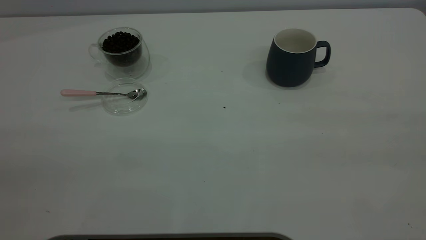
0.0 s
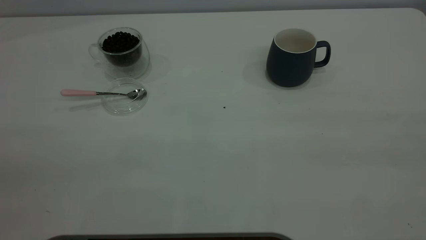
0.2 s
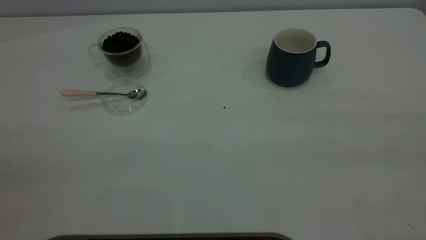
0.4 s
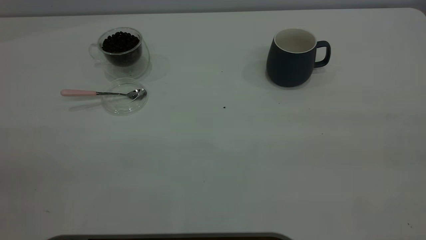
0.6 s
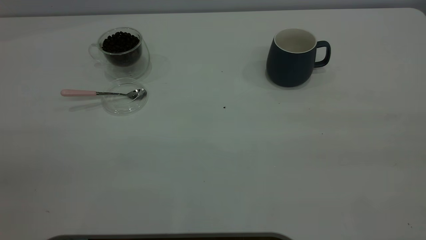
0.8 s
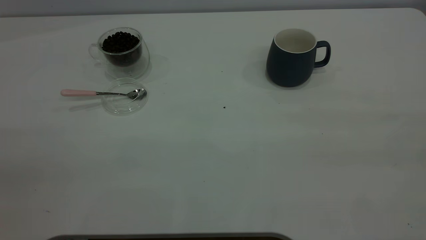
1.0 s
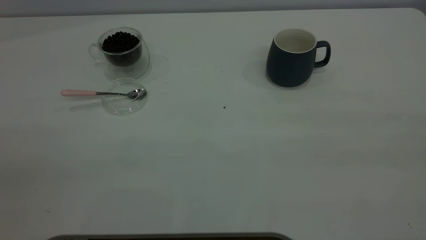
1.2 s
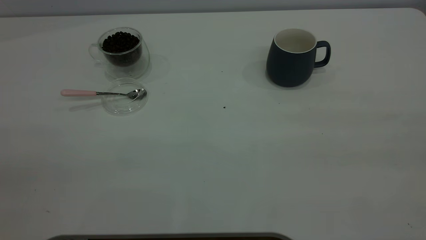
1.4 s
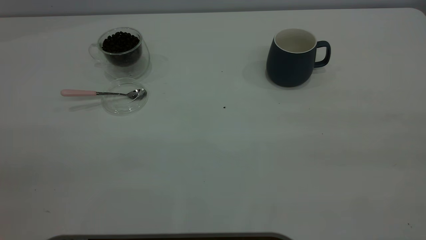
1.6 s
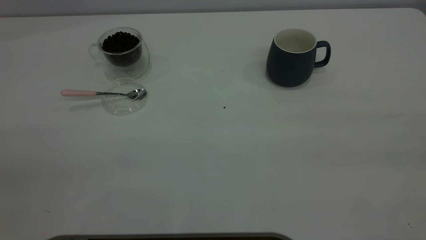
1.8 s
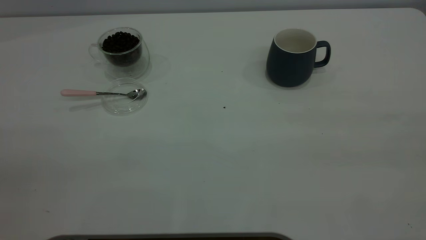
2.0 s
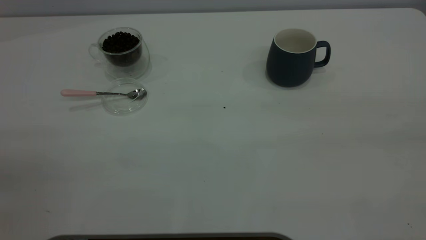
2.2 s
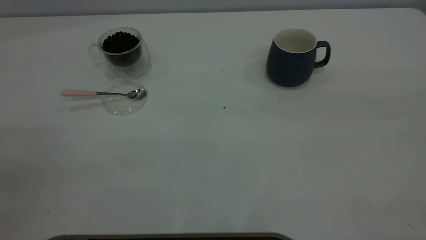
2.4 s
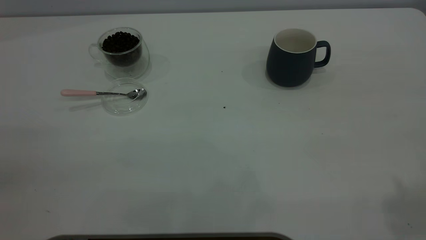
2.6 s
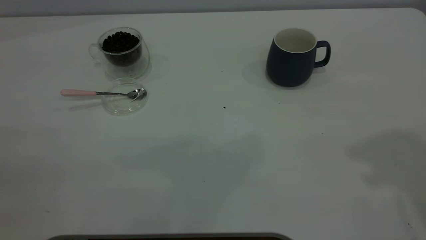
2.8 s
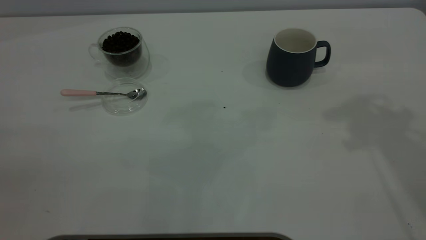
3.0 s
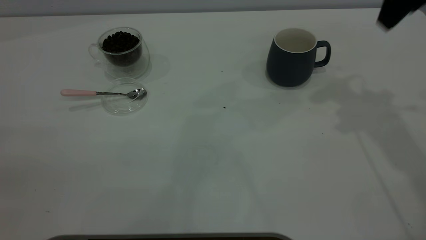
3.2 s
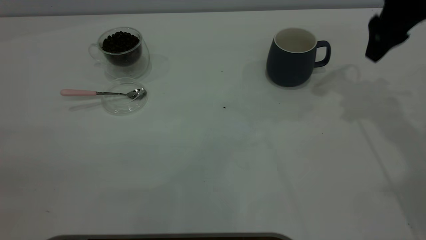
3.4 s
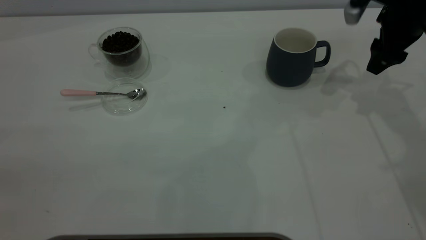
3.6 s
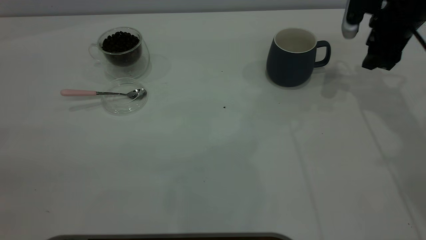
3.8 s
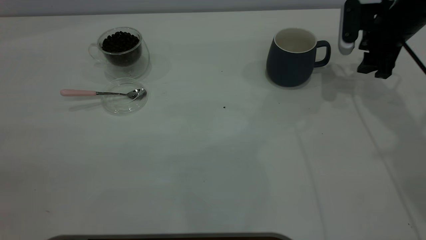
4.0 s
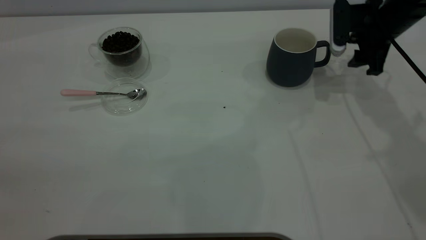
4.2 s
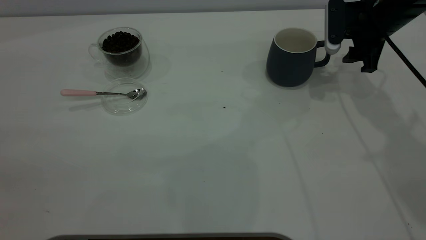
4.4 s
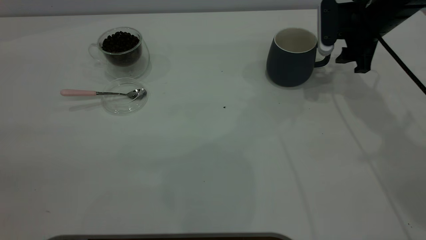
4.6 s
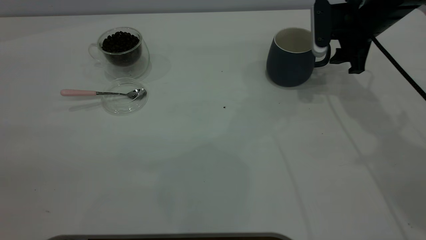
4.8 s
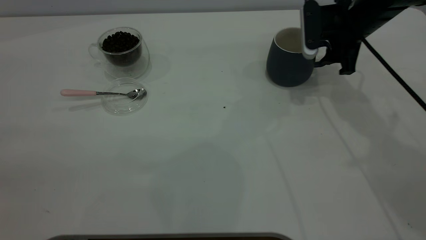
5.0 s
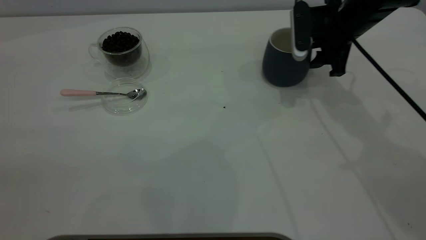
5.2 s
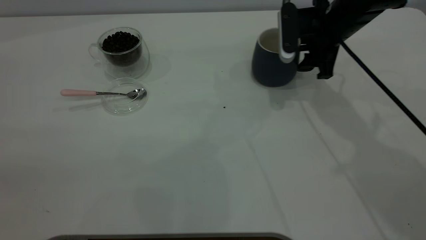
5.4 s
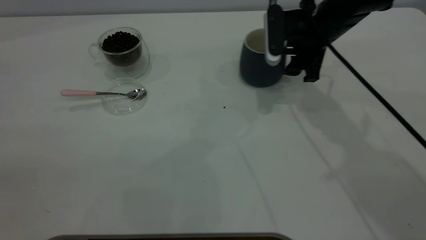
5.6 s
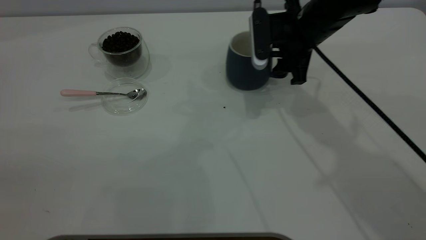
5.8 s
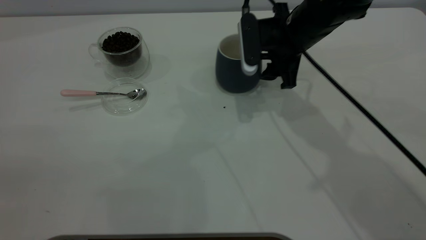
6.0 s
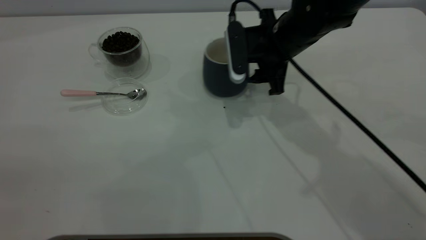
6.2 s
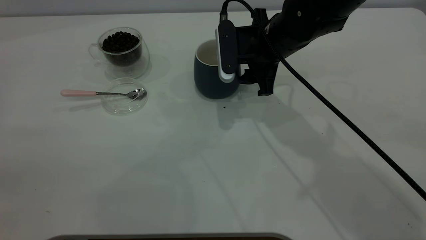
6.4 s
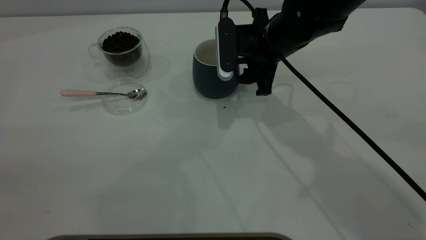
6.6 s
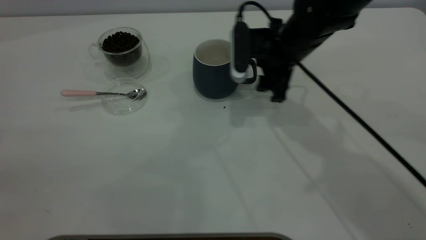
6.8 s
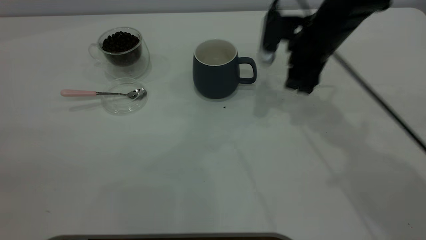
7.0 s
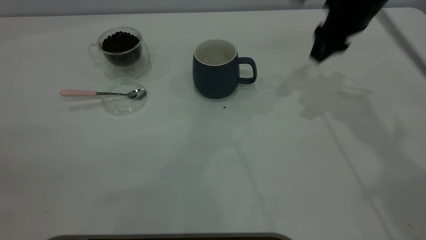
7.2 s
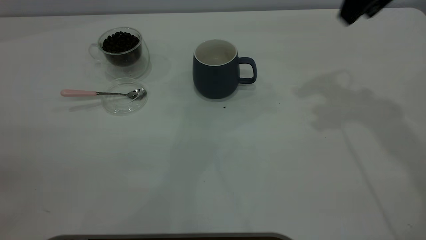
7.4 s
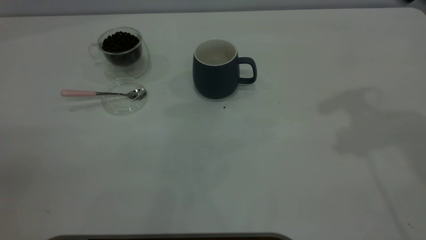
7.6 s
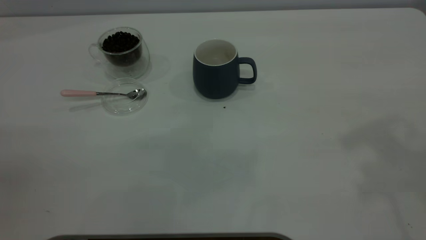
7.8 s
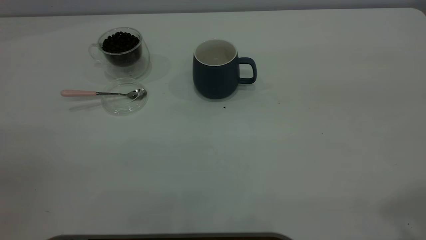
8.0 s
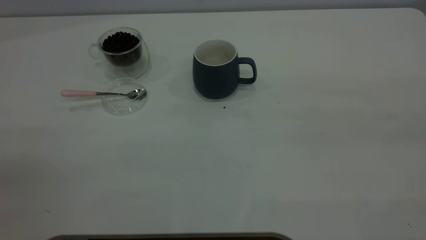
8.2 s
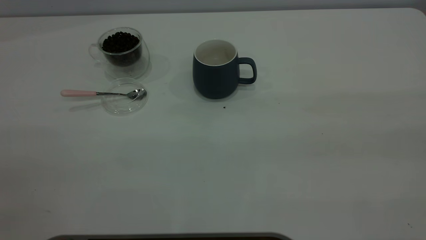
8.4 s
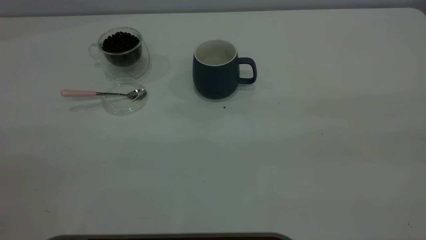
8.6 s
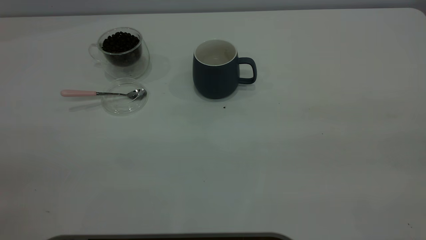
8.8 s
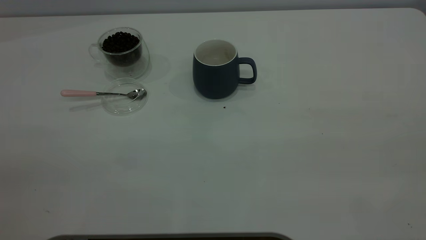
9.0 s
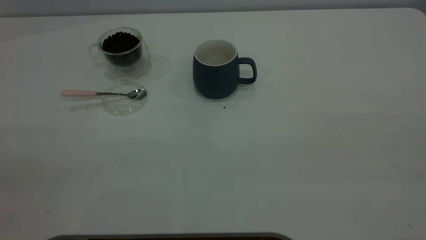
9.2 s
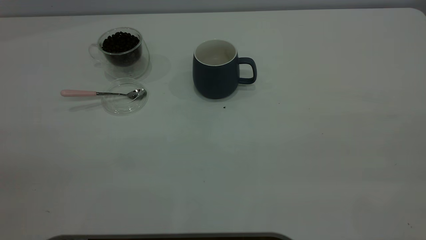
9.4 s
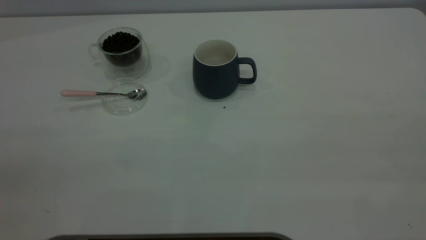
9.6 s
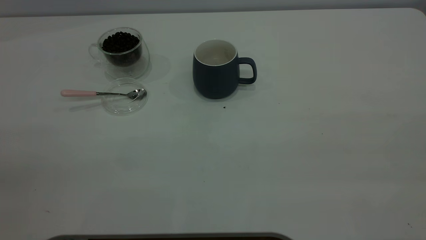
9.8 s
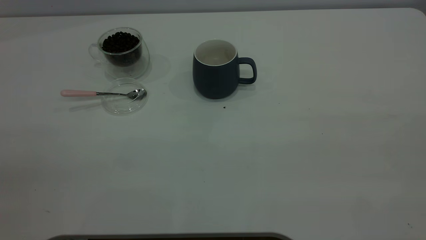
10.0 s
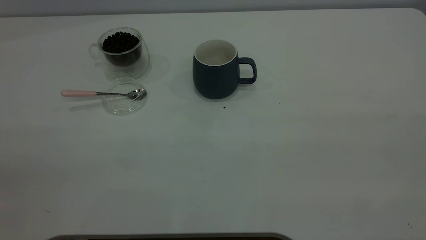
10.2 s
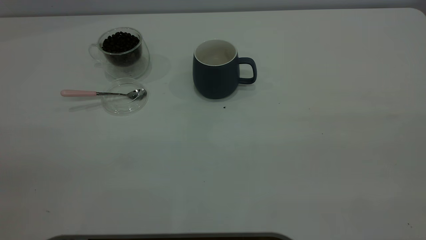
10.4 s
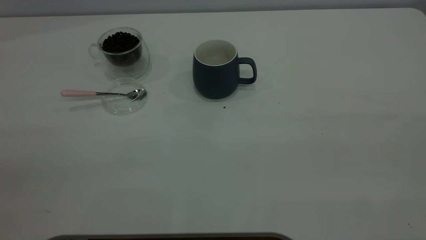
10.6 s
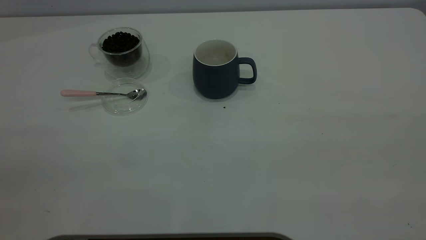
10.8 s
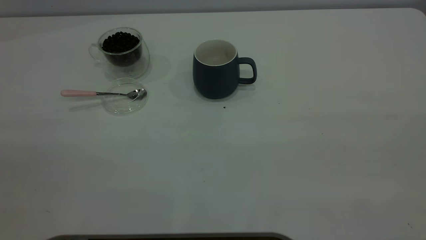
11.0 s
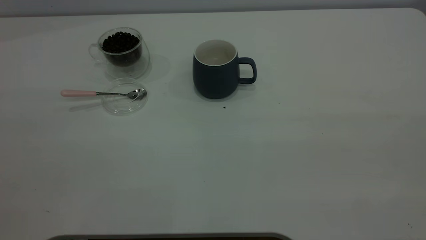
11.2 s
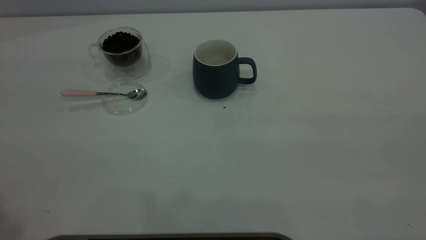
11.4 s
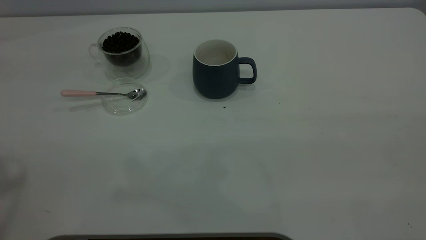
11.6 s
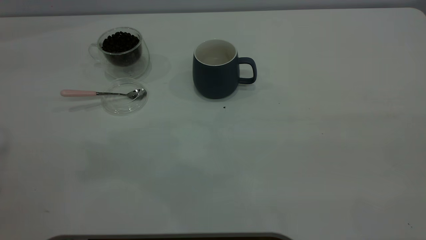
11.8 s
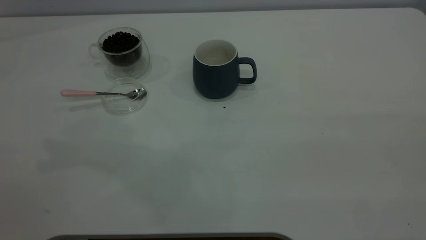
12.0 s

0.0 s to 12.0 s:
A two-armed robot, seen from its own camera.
Task of the whole recording: the right gripper place the grey cup in the center of the table, the left gripper take the pink spoon from the cup lid and scoop out the coffee beans from the coffee cup and put them into the grey cup, the left gripper put the spoon back into the cup lid.
Step, 0.0 to 6.8 s: Move the cup to the center of view.
0.0 to 1.6 s: The two grippers keep their place.
3.0 to 4.4 s: The right gripper goes roughly 25 cm downward and forward.
4.4 to 6.0 s: The right gripper travels to the left by about 15 cm.
6.0 to 7.6 s: The right gripper is displaced upward and to the right by roughly 30 cm.

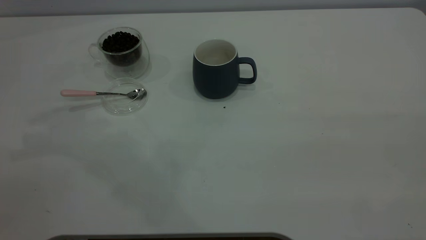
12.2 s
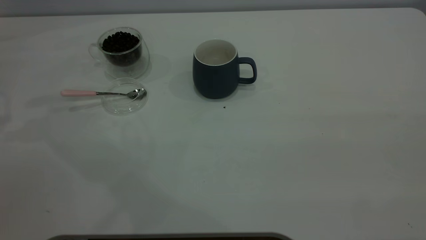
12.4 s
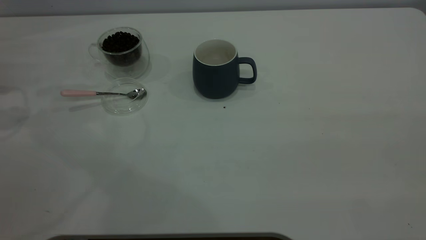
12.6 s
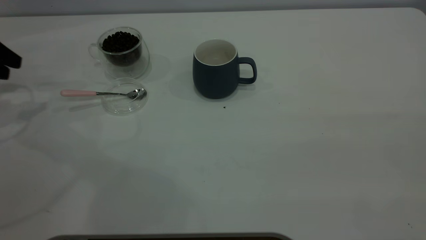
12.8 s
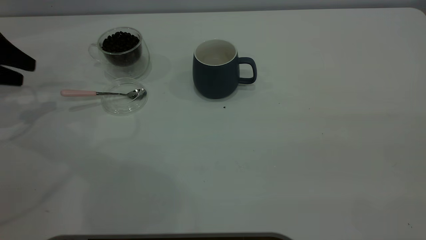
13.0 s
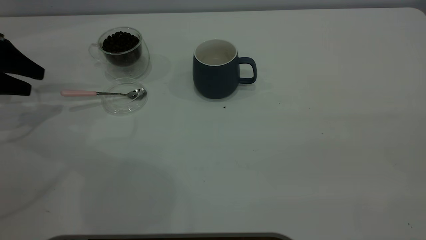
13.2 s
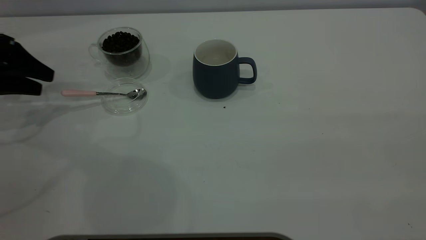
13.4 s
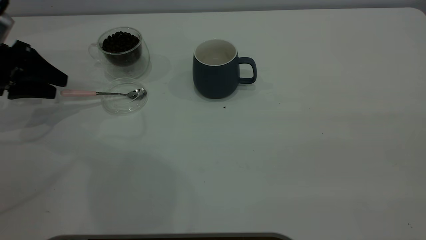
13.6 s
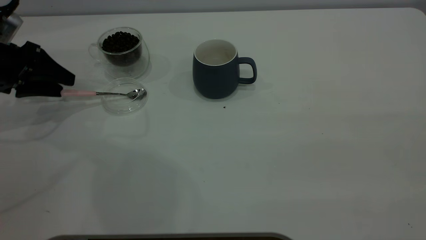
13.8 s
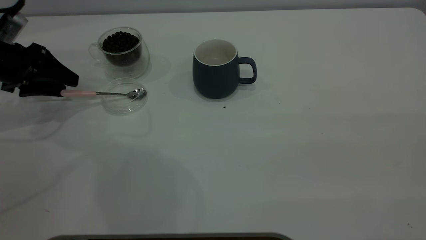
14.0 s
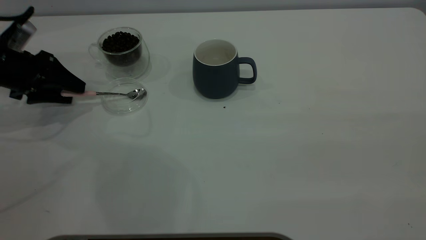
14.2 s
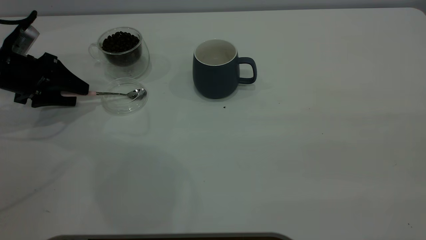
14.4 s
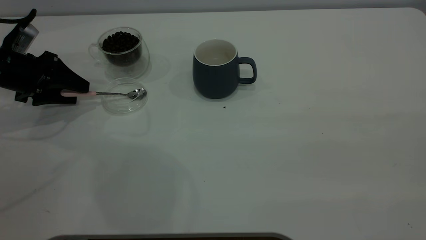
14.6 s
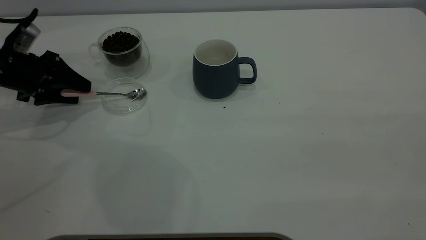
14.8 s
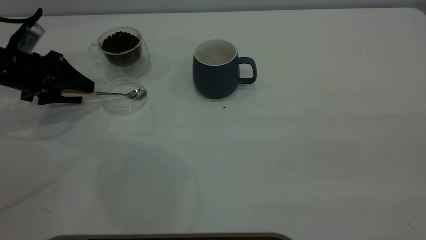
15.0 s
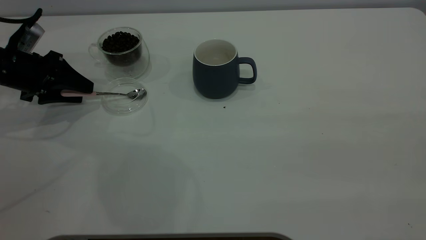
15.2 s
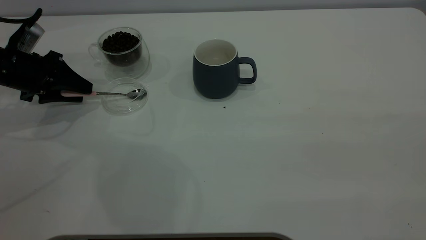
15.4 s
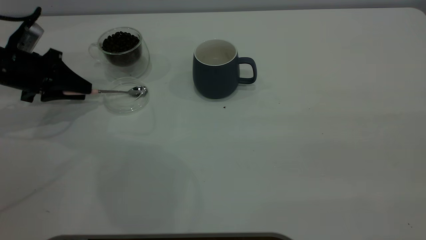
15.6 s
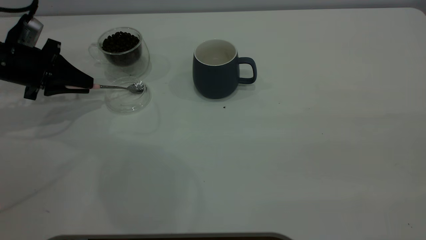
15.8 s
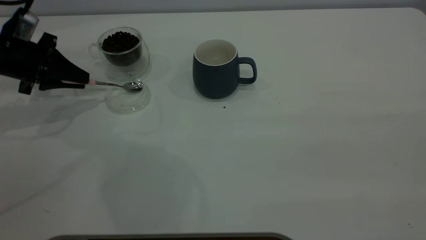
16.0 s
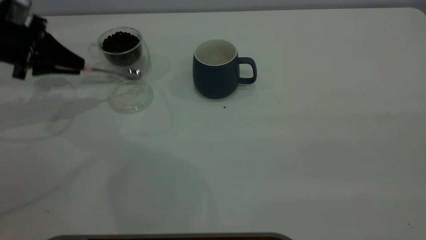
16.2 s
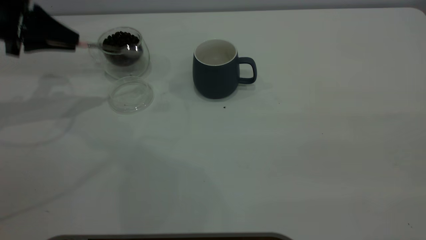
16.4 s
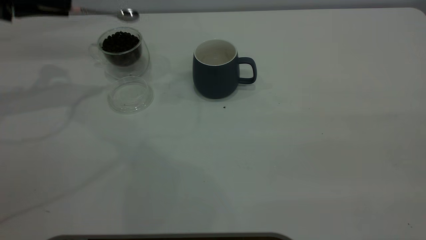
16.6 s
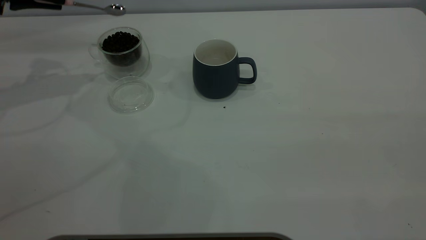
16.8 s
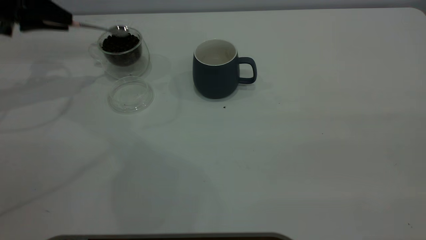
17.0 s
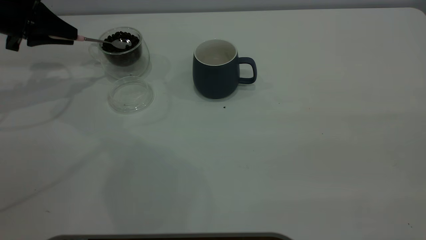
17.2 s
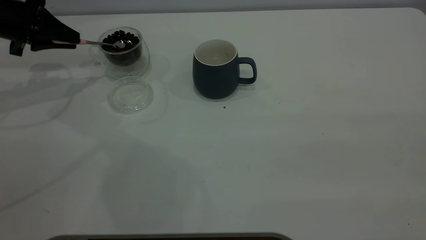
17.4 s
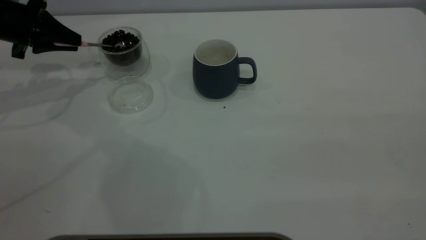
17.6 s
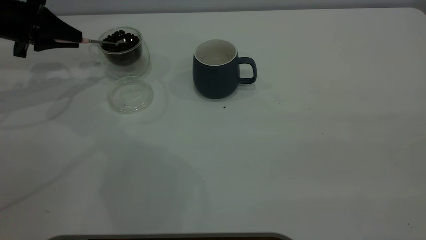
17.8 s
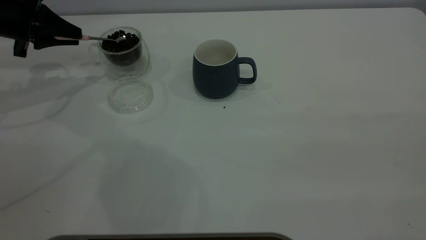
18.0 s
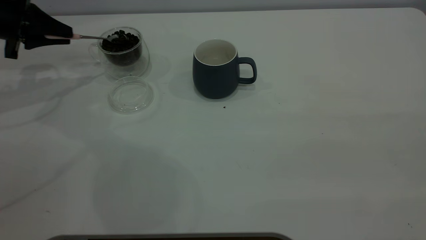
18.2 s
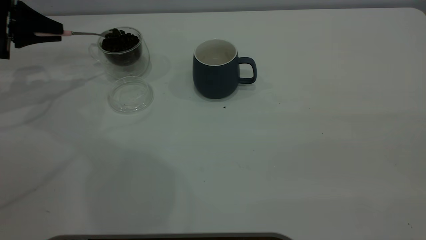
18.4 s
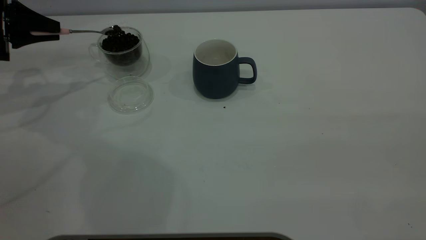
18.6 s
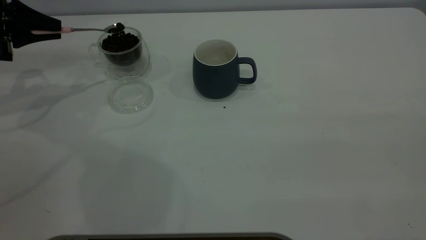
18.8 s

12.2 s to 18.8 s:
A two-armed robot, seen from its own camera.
Task of the whole recording: the right gripper place the grey cup in the center of the table, the left gripper take the pink spoon from the cup lid and scoop out the coffee beans from the coffee cup and put them into the grey cup, the left gripper put the spoon back into the cup lid.
Step, 12.2 to 16.2 s: Pick up the spoon.
12.2 to 13.8 s: The left gripper travels downward by approximately 20 cm.
13.8 to 15.4 s: The left gripper closes.
15.4 to 17.2 s: The left gripper shifts roughly 5 cm upward, and closes its fingers.
